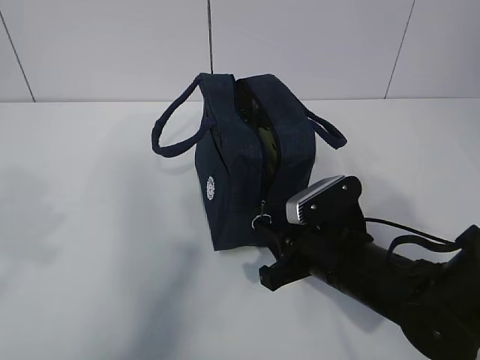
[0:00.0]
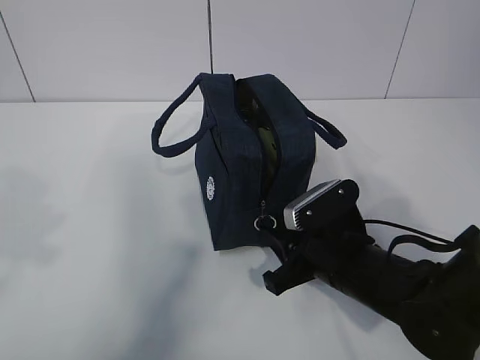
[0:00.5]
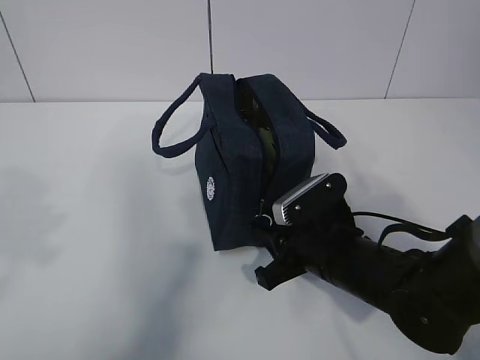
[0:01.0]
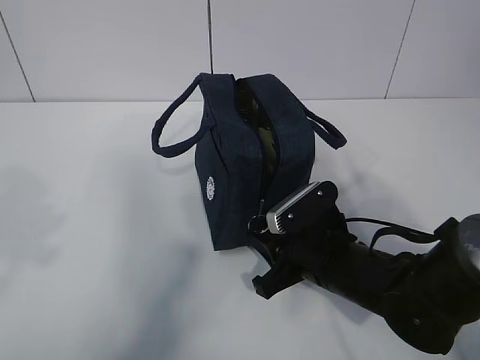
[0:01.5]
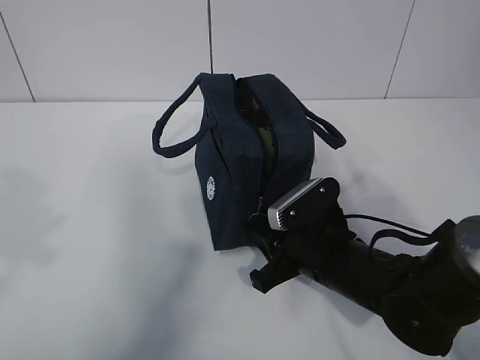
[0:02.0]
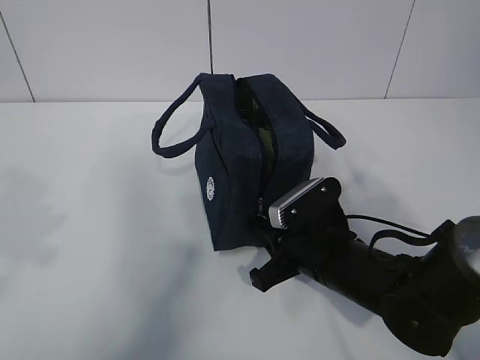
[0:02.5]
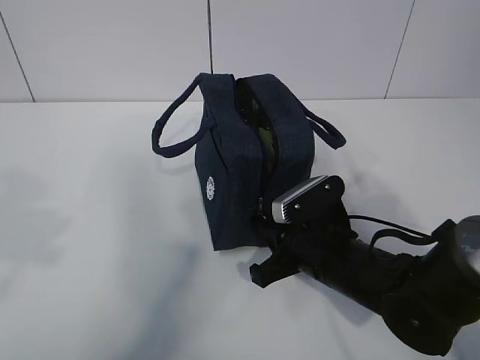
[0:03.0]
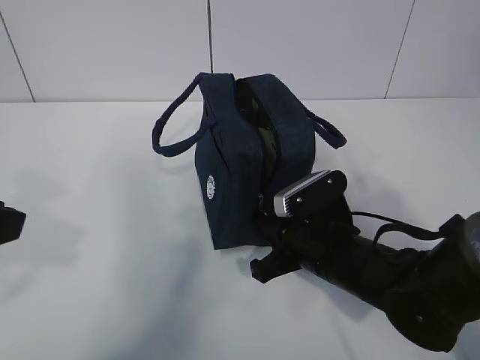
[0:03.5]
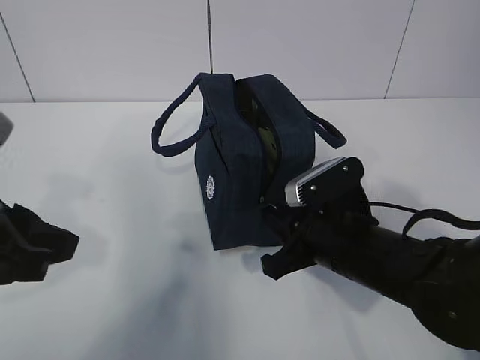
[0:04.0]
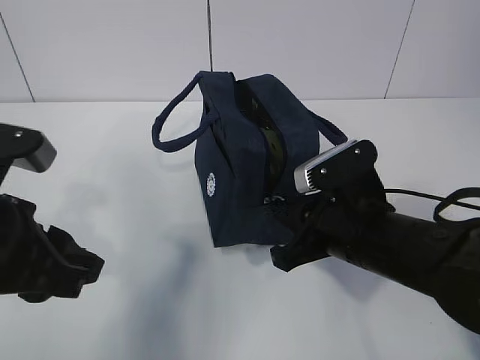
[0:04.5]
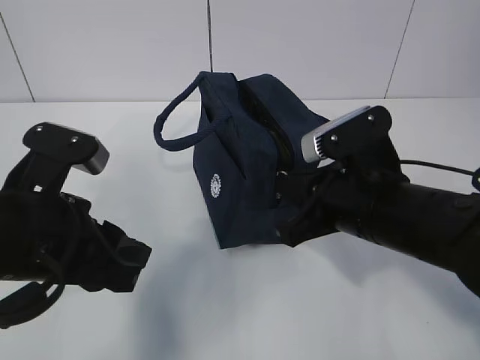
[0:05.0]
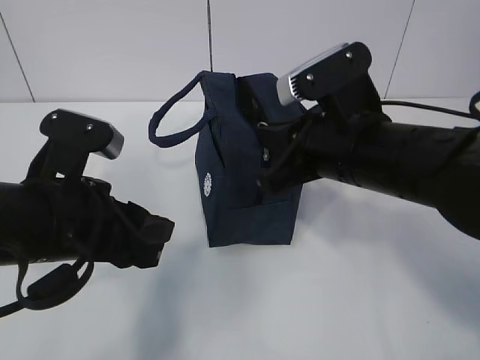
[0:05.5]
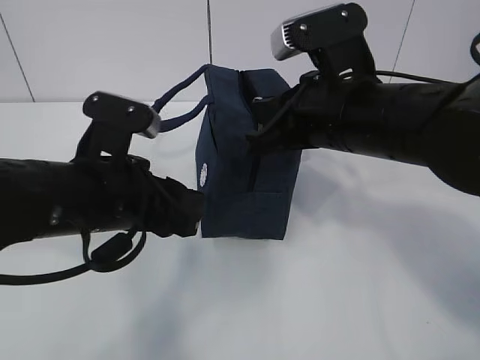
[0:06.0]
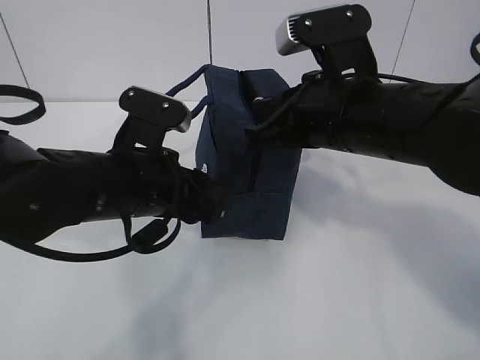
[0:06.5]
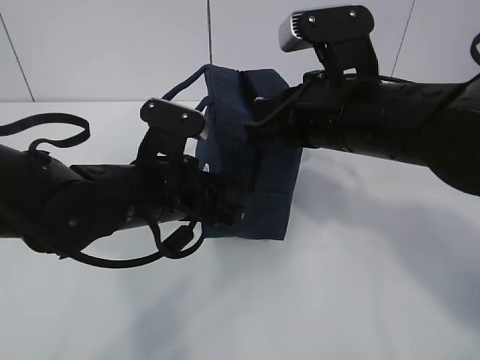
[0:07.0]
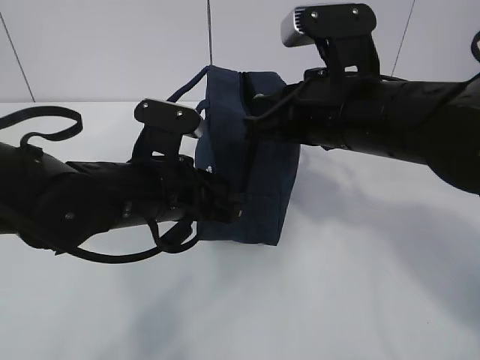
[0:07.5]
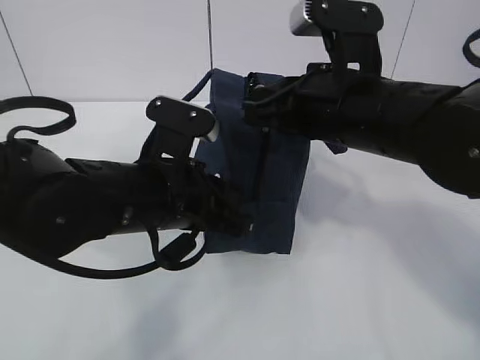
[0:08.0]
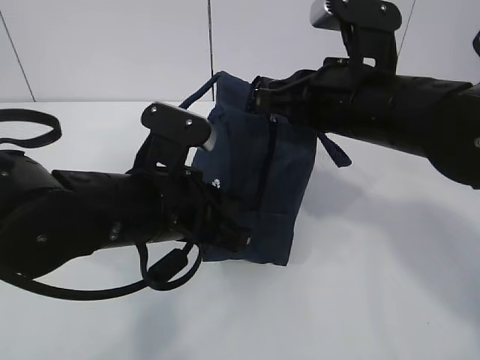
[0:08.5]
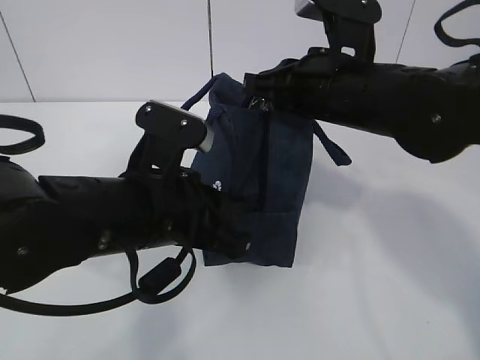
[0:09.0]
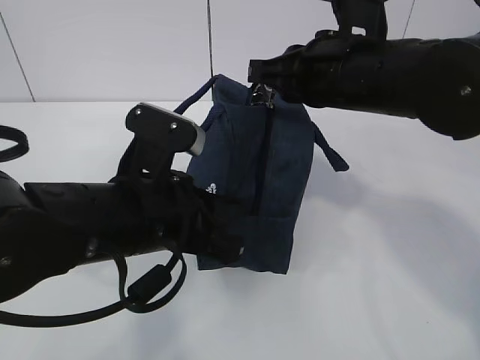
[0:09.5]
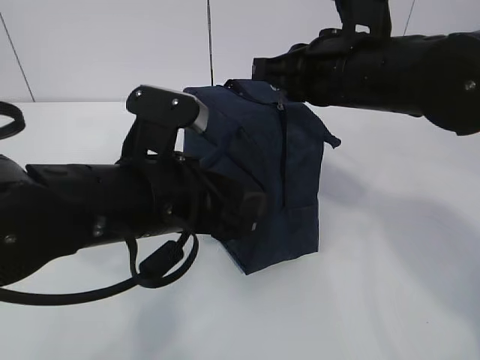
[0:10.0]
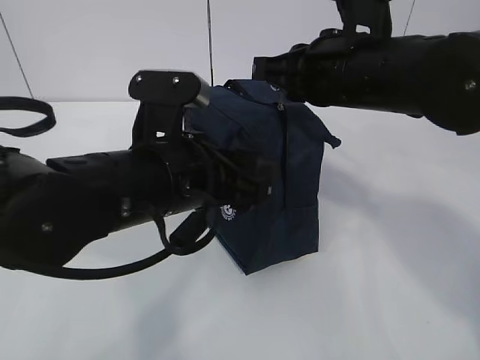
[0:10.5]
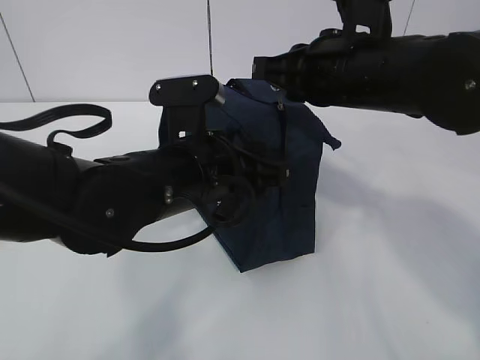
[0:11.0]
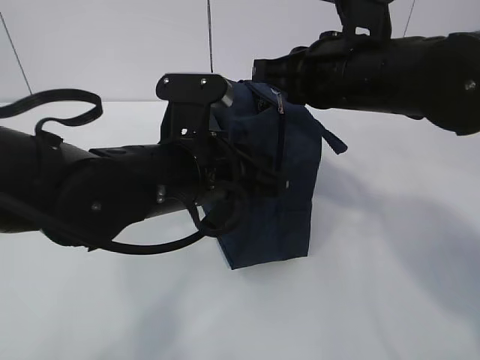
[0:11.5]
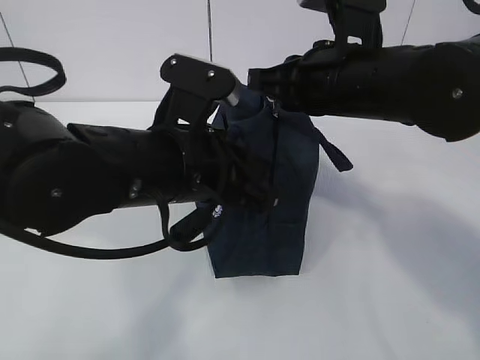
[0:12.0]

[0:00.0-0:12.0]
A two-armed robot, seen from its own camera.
Step, 1.0 to 7.0 s: Pull the zipper with your right hand.
Step, 7.5 to 8.5 s: Grab the lunch bag with your left hand.
0.0 to 2.0 s: There are only small adjustments of the grippers.
2.0 to 4.0 s: The left gripper moves downward, some 5 cm; the right gripper closes up.
4.0 to 6.0 s: The right gripper is displaced upward by approximately 15 cm. The left gripper is displaced to the right, forward and downward by roughly 10 cm.
6.0 to 8.0 s: The left gripper moves approximately 5 cm, and closes up.
8.0 to 10.0 s: The left gripper opens its fingers.
10.0 to 12.0 s: The left gripper closes up.

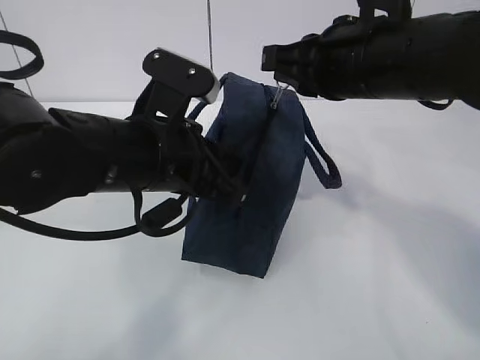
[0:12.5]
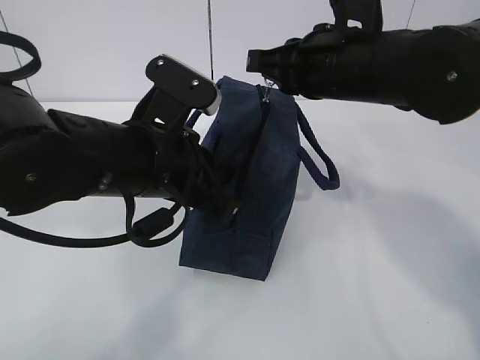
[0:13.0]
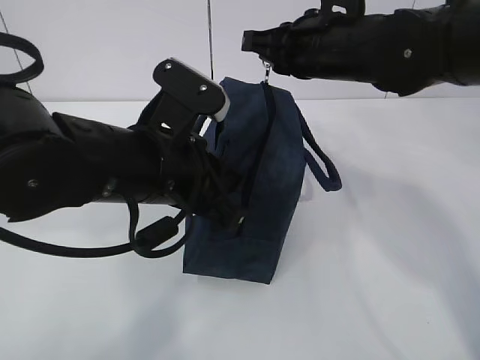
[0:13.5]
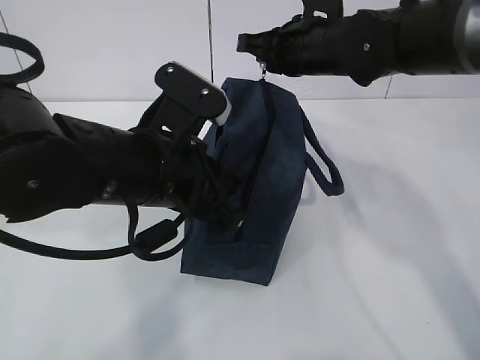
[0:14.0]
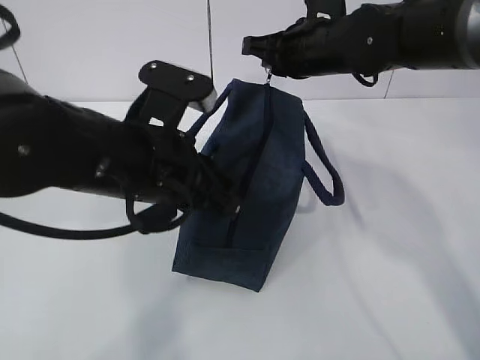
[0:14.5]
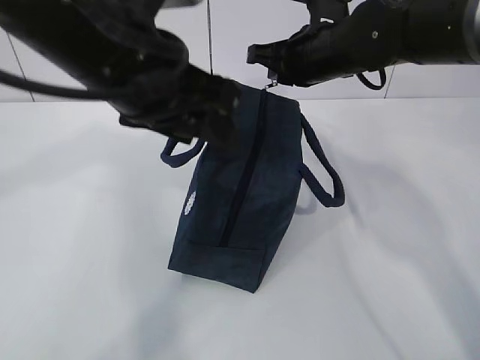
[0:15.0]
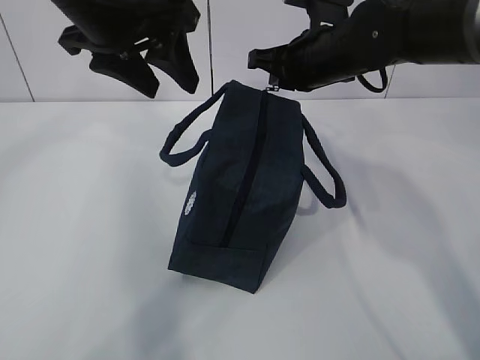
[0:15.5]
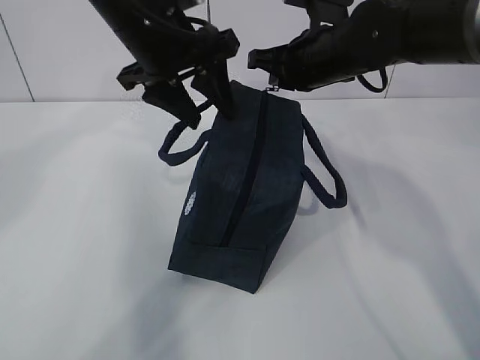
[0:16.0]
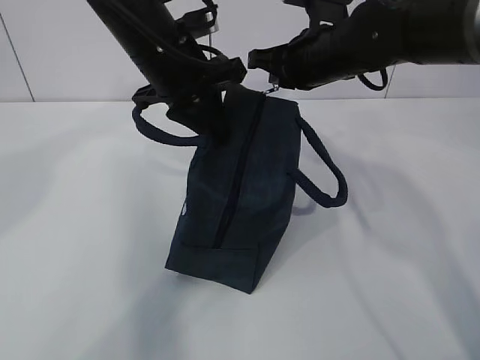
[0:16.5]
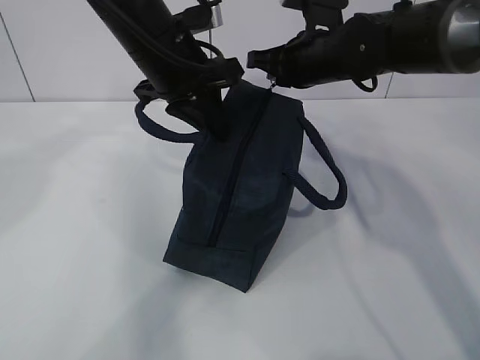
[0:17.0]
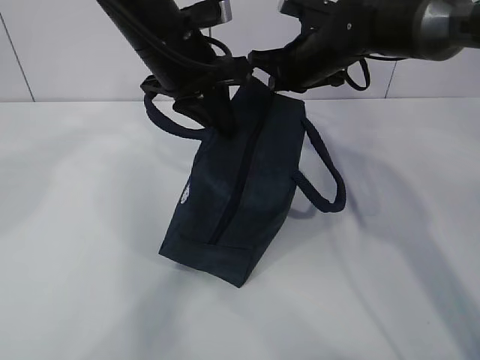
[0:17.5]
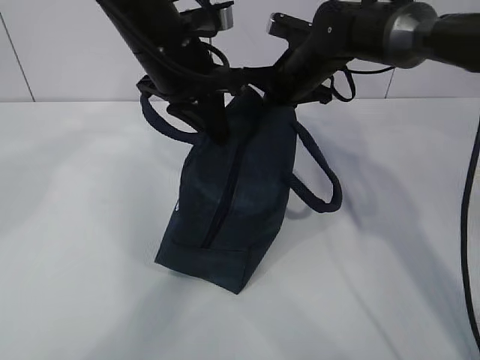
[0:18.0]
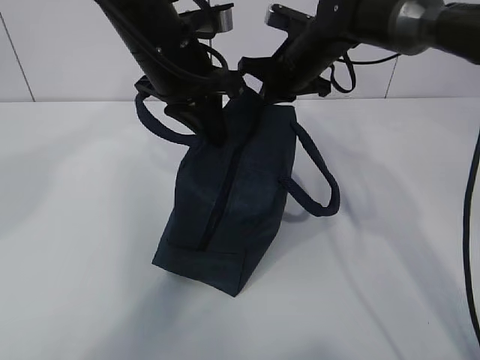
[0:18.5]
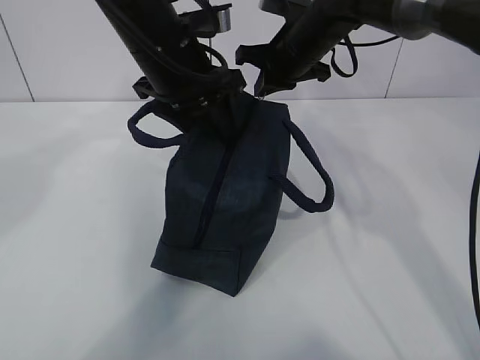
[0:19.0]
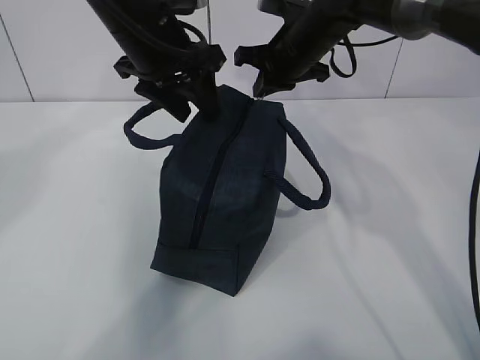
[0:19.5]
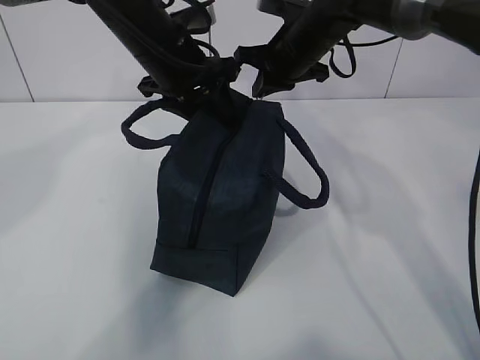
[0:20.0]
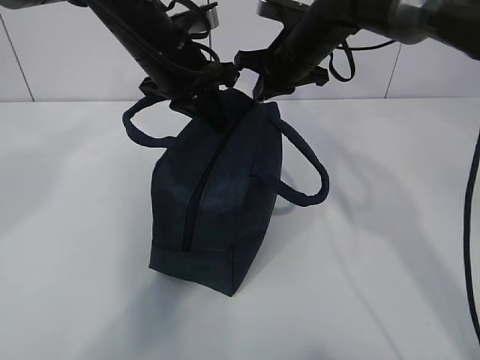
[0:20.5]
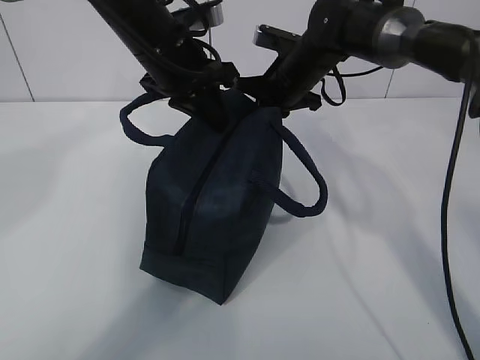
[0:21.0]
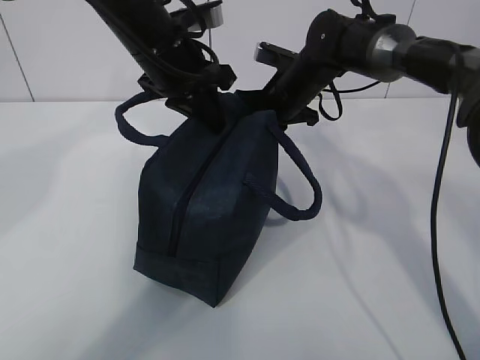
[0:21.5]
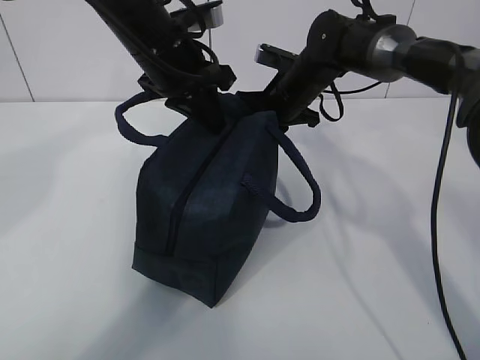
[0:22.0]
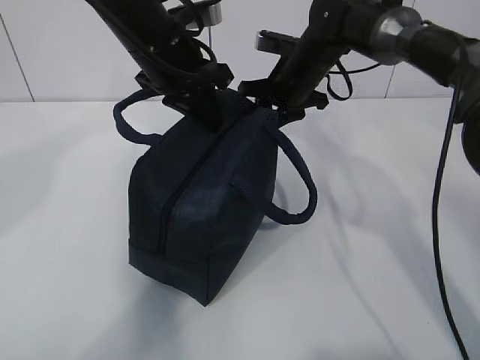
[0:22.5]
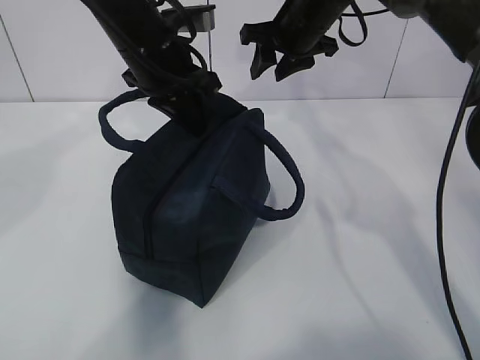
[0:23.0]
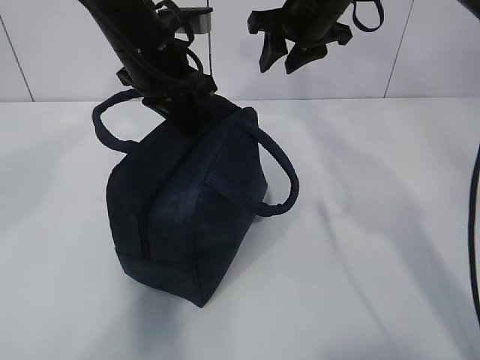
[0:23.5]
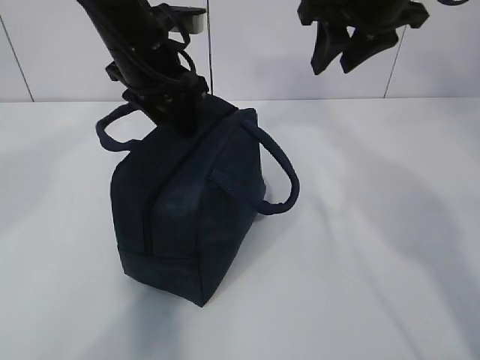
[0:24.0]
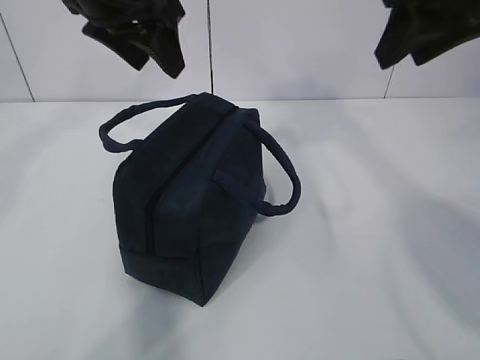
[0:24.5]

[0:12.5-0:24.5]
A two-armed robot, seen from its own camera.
12.5 to 14.5 s: The right gripper travels forward by approximately 15 cm.
14.5 to 16.5 s: The left gripper travels forward by approximately 15 cm, and opens and closes again.
16.5 to 18.5 s: The right gripper shifts some 5 cm forward.
18.5 to 20.5 s: The left gripper opens and closes again.
20.5 to 22.5 s: The right gripper opens its fingers.
22.5 to 24.5 s: The left gripper heads upward, covering about 10 cm, and opens, while the right gripper is displaced backward and upward by about 30 cm.

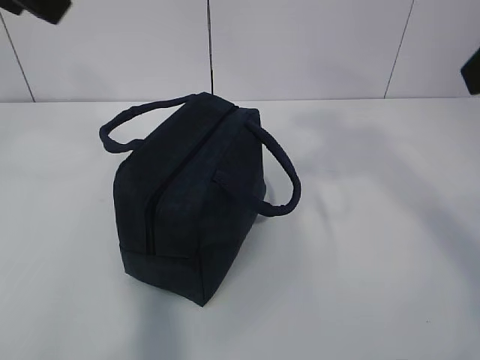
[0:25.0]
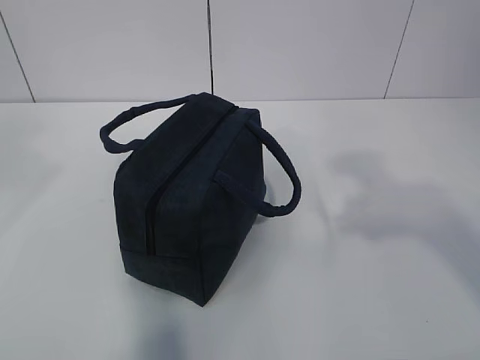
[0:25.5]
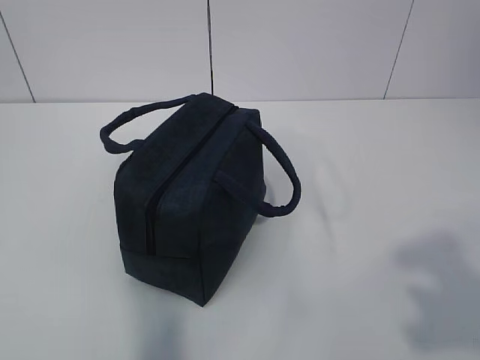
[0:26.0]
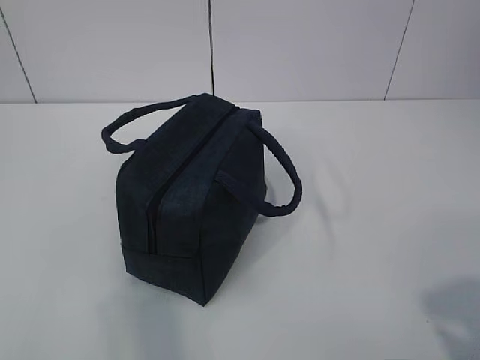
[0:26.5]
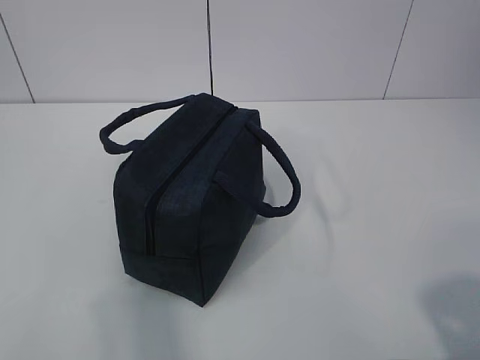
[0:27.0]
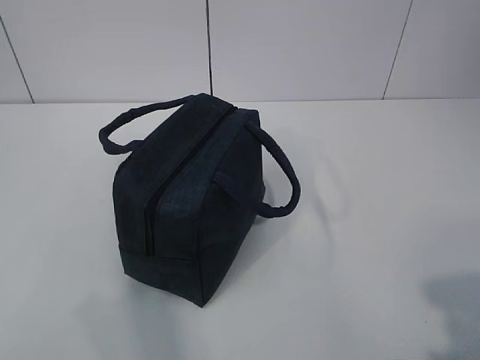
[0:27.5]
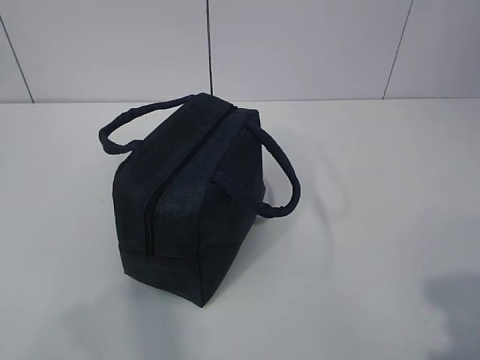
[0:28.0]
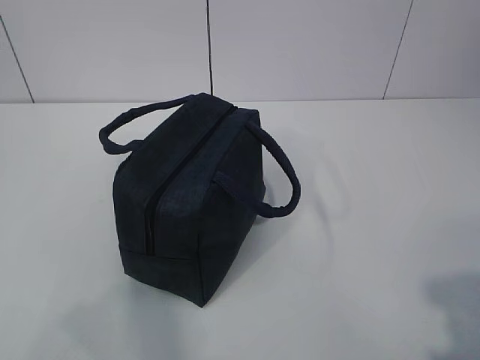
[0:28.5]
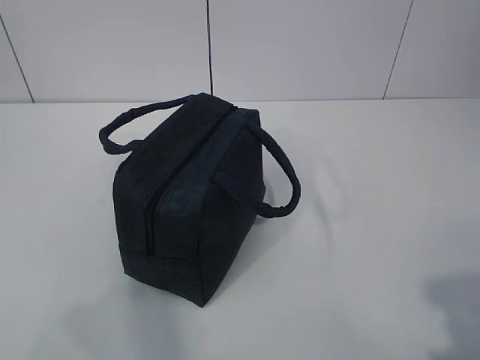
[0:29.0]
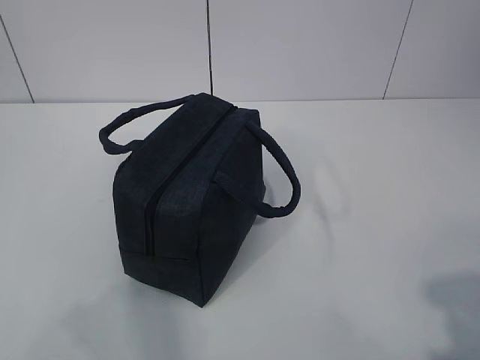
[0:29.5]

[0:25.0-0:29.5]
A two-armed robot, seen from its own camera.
25.0 to 27.0 s: The left gripper travels backward, downward and to the left by about 30 cm. Meanwhile the right gripper heads backward and downward, covering about 25 cm.
